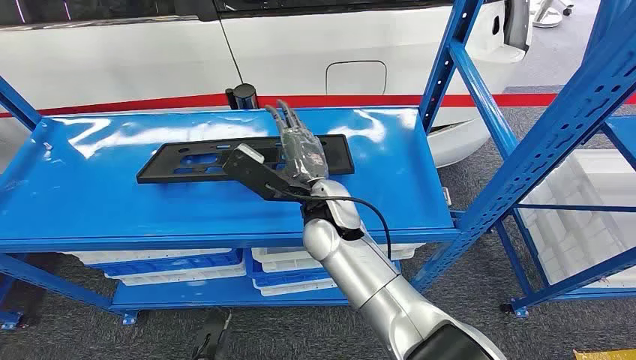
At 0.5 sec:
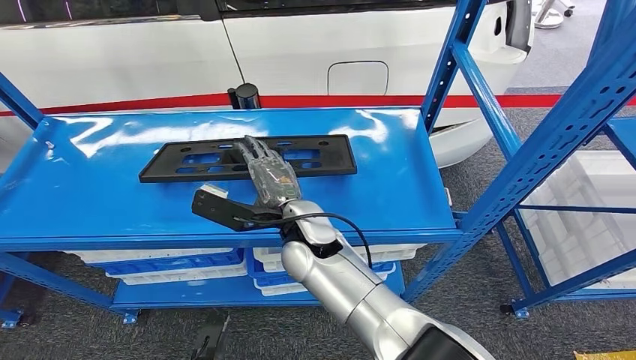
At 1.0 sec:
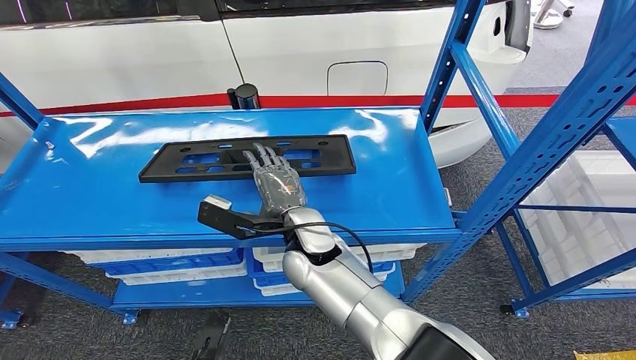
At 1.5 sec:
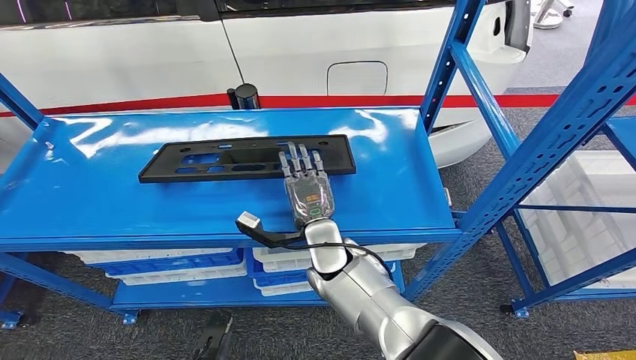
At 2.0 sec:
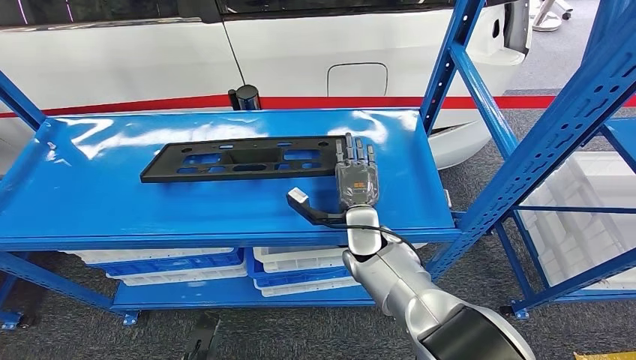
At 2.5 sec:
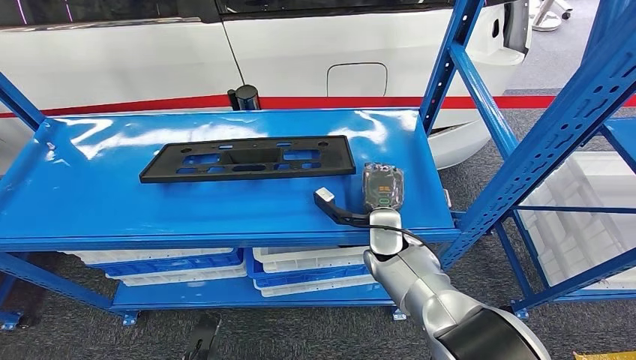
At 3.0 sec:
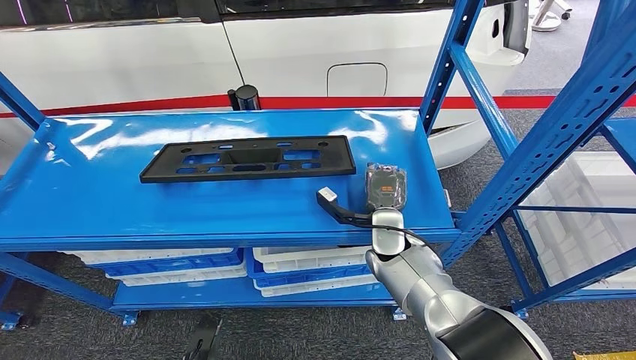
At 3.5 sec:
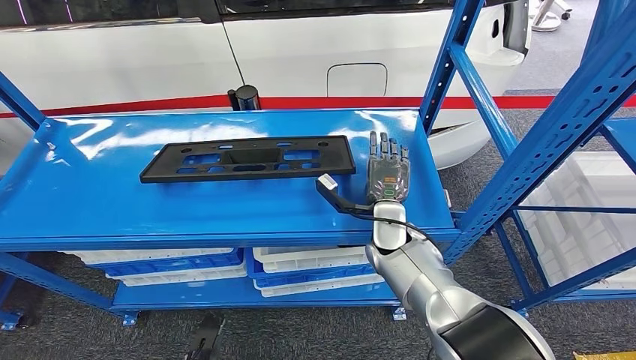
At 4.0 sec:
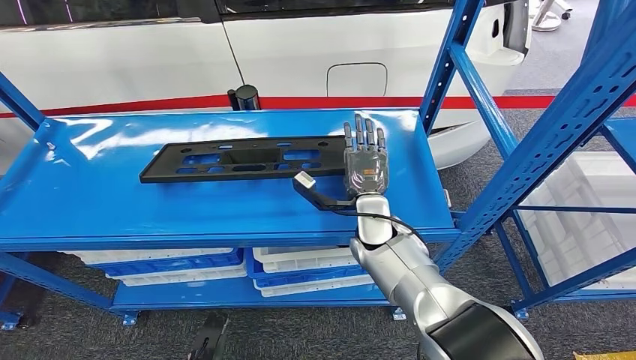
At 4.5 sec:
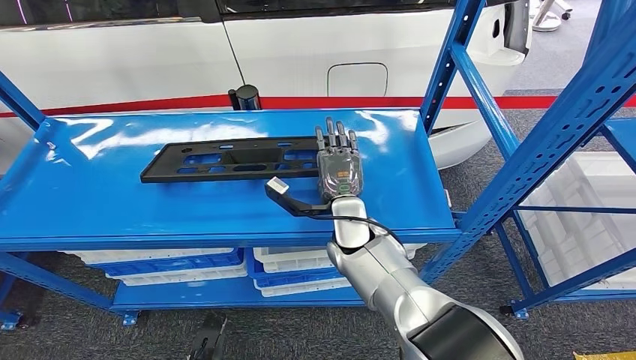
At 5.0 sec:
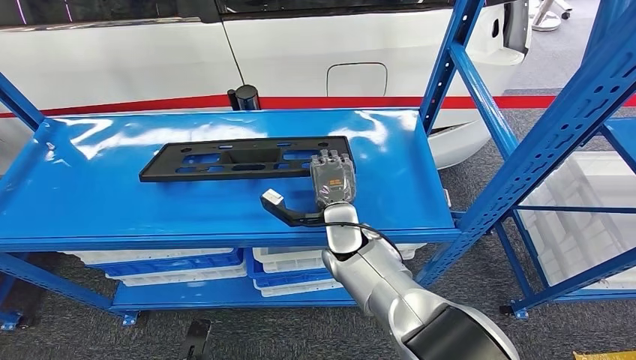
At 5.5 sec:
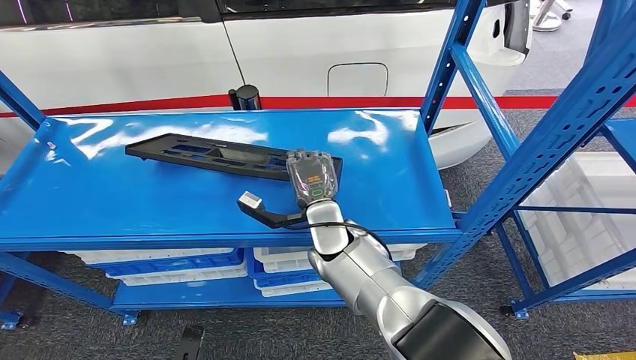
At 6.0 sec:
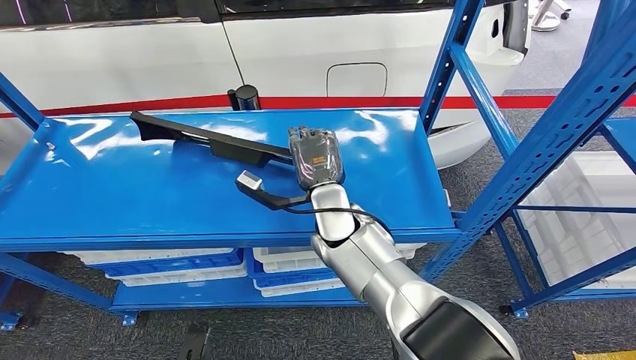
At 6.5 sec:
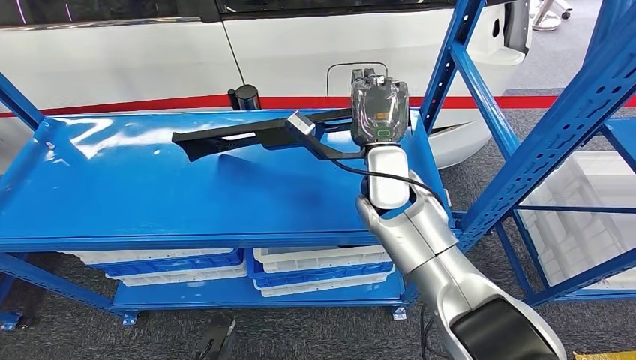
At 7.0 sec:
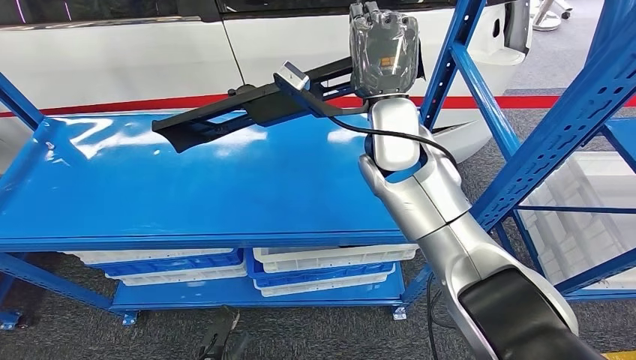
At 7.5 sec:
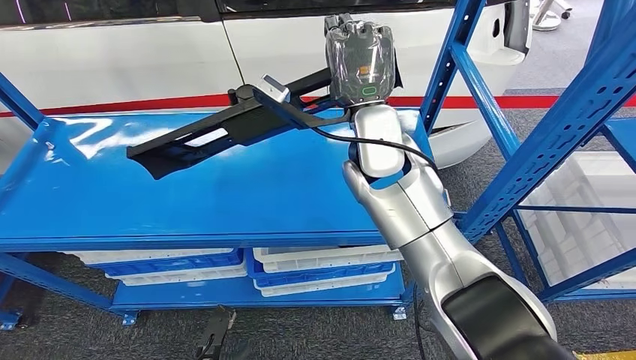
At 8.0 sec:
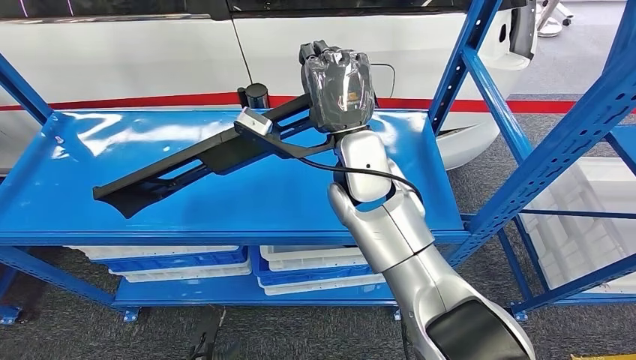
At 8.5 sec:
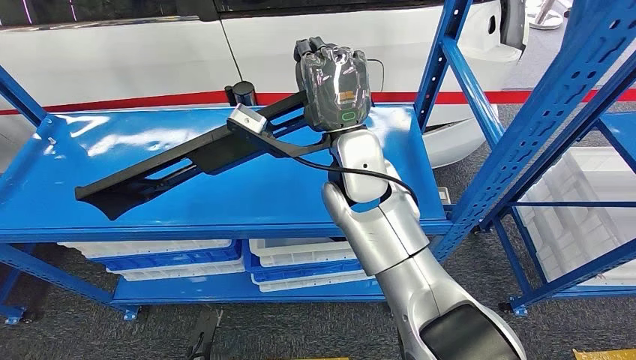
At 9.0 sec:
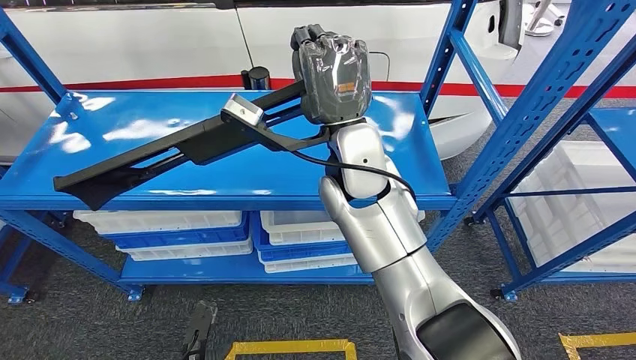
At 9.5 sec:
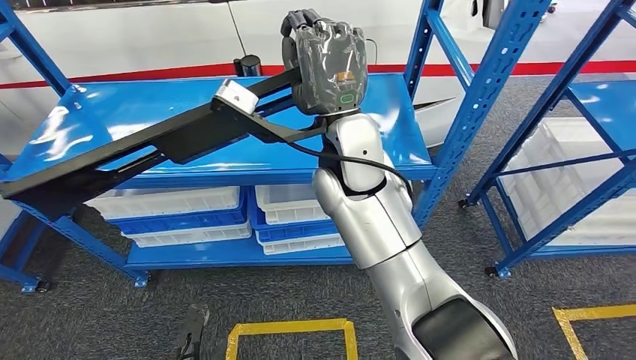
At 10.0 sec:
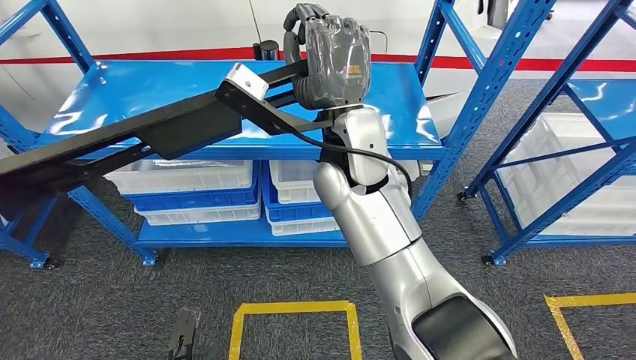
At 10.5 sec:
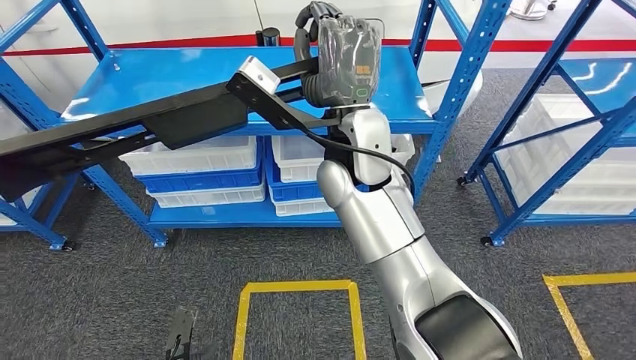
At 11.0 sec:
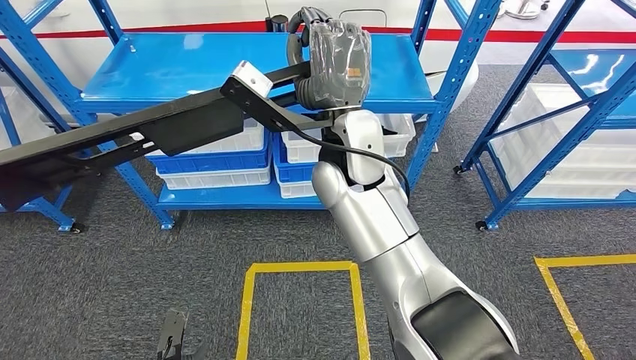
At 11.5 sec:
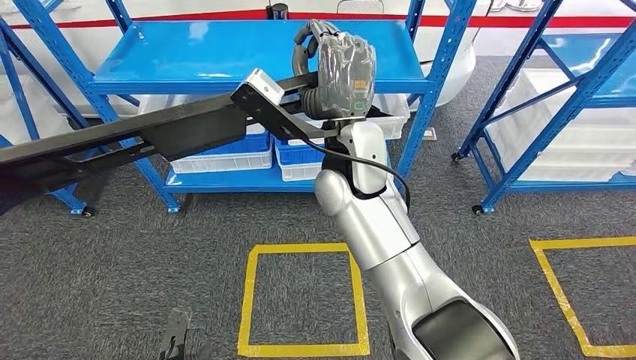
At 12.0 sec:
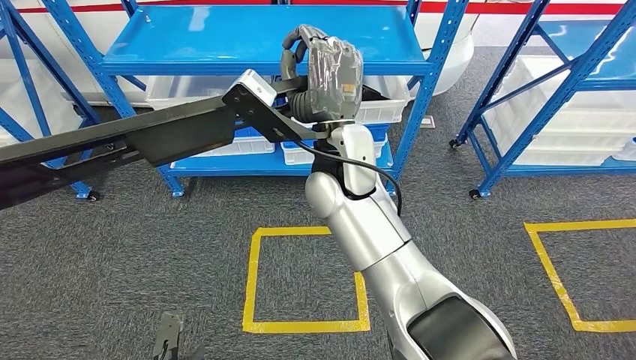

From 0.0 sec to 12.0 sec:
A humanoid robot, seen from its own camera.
Step, from 0.0 sec to 9.0 sec: Pick up the large parts from the shelf.
From 2.0 sec to 4.0 sec: The hands make only small movements.
From 4.0 sec to 6.0 sec: The right hand shifts approximately 10 cm to the left.

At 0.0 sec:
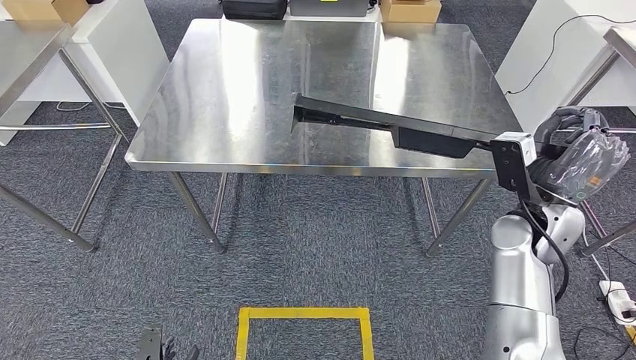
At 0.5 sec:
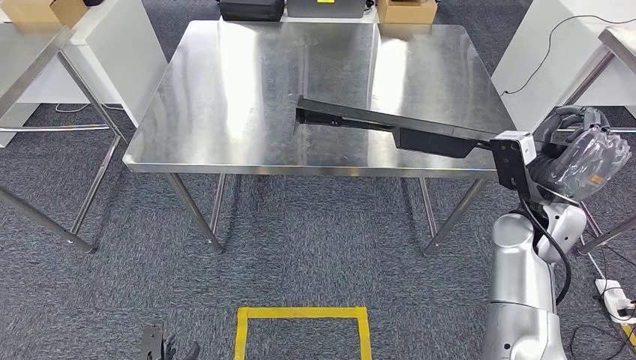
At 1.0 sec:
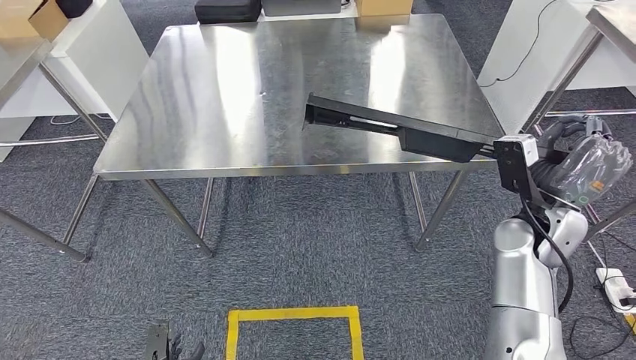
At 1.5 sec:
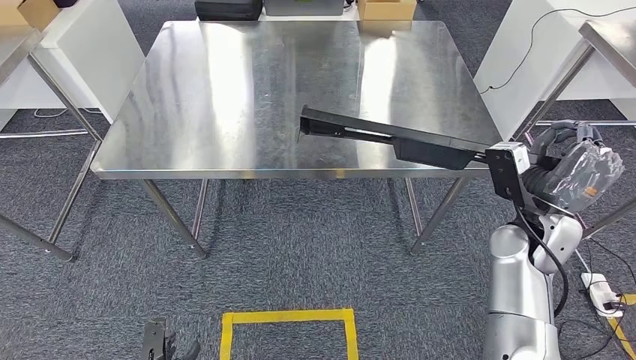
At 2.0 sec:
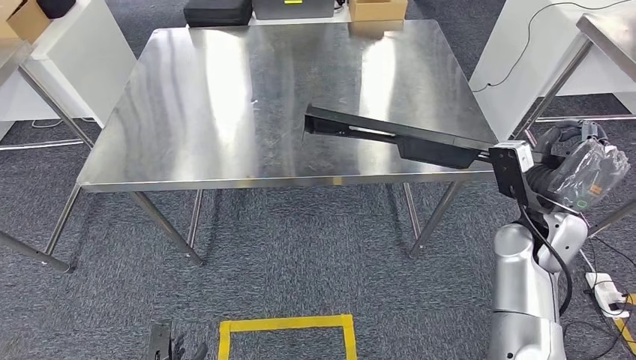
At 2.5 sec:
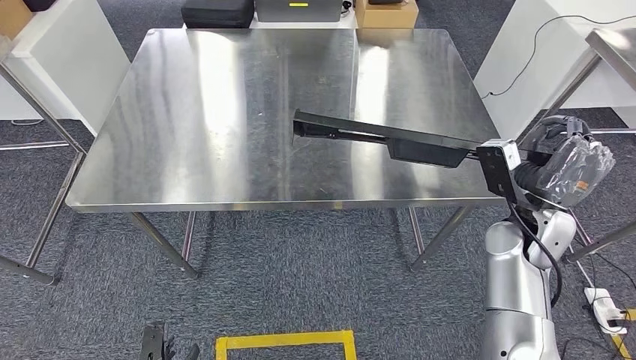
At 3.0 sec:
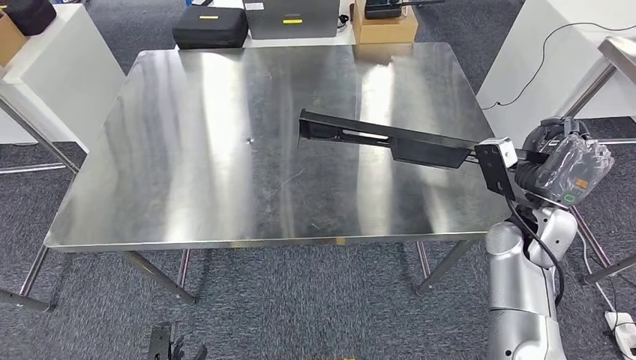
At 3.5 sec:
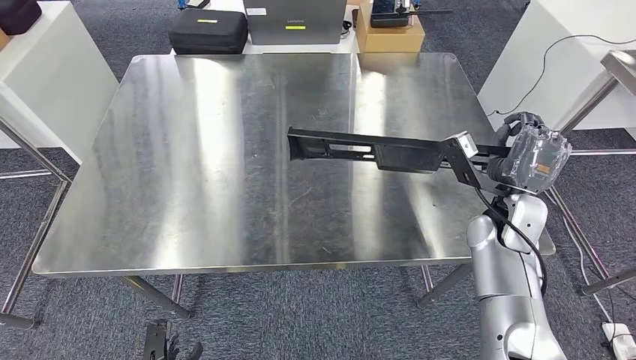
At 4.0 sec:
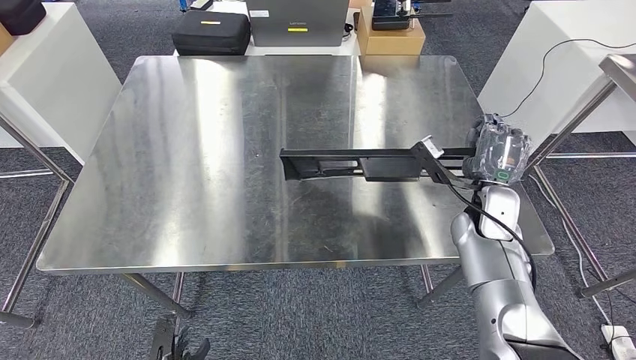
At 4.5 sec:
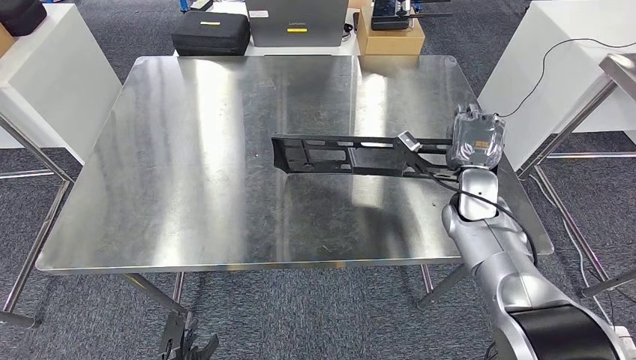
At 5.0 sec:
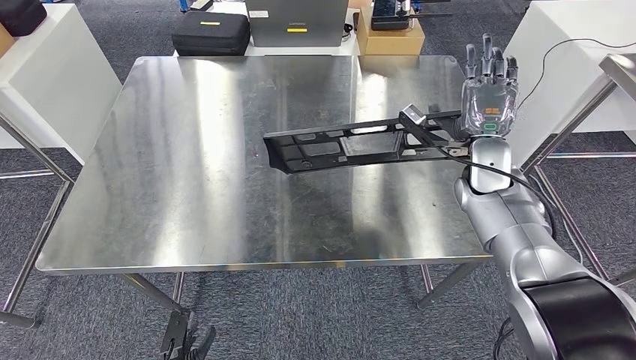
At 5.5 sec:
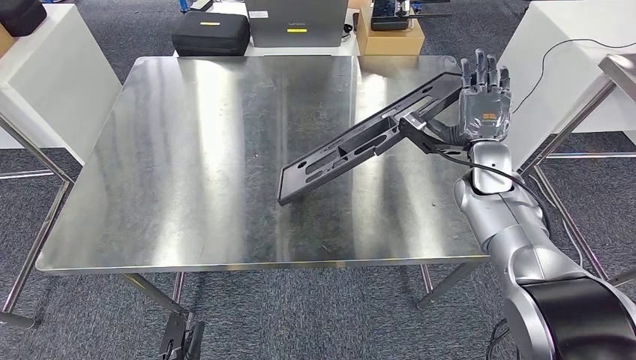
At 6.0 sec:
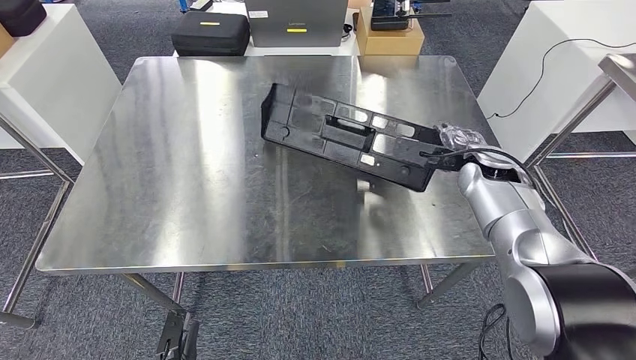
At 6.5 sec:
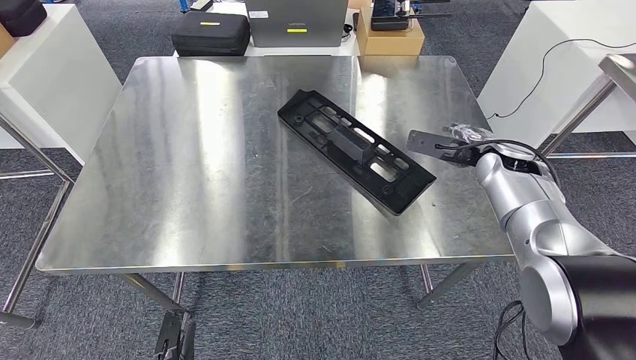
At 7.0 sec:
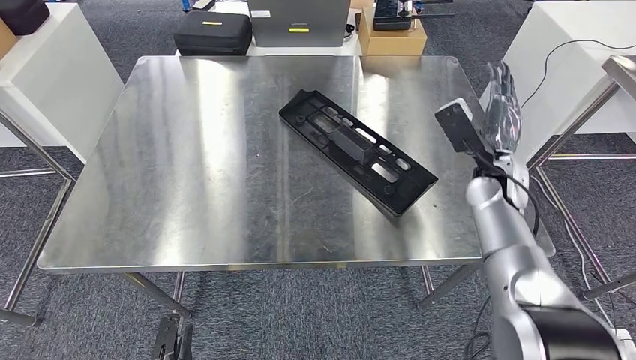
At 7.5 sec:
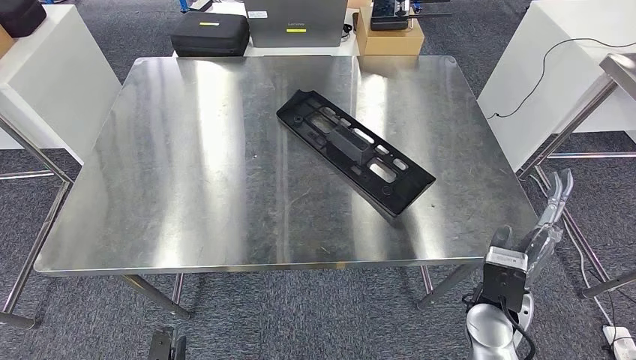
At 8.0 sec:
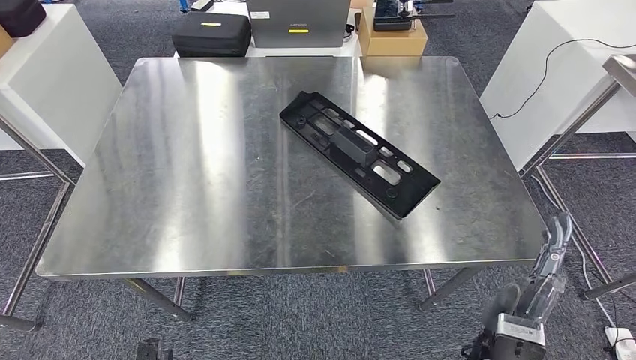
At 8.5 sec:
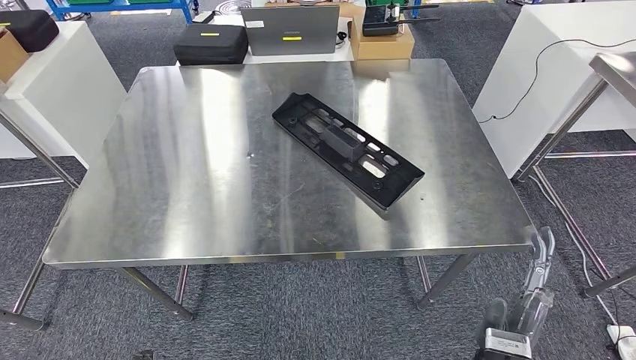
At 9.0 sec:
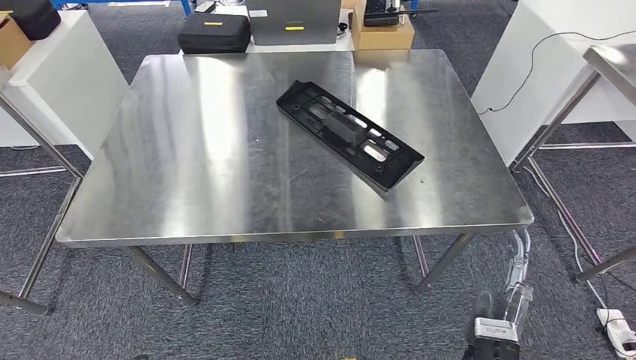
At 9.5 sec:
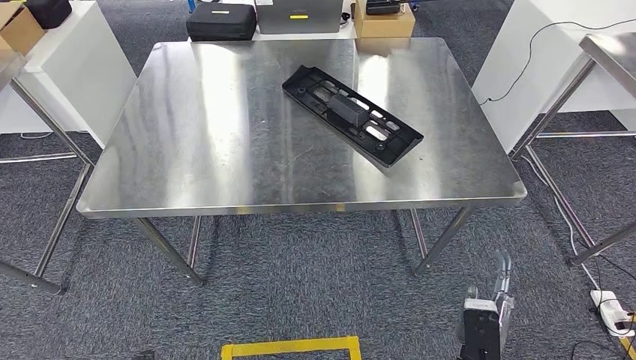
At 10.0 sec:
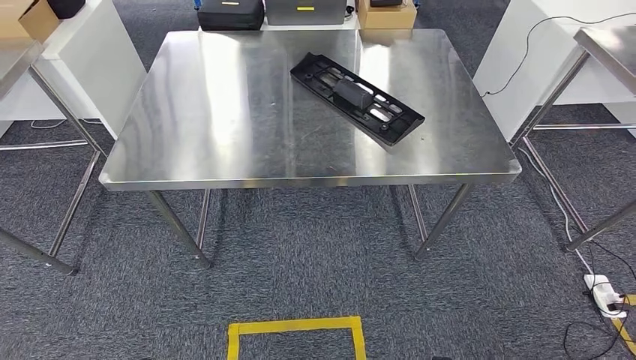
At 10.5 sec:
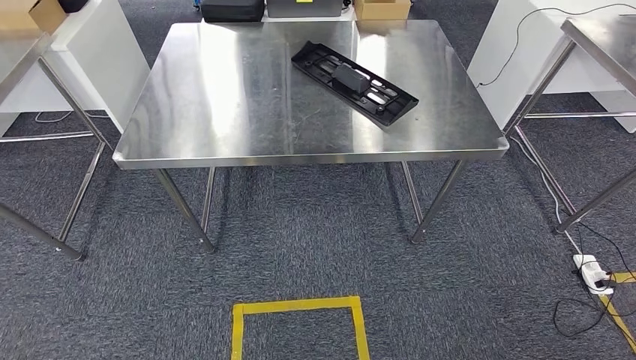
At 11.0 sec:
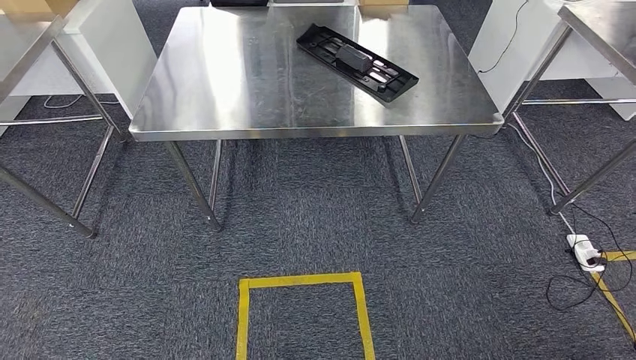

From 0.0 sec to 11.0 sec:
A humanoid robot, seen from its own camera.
Step, from 1.0 sec to 6.5 sec: Insert the large parts into the corresponding slots on the workbench.
From 5.5 sec to 7.5 sec: The right hand shifts roughly 20 cm backward and downward.
